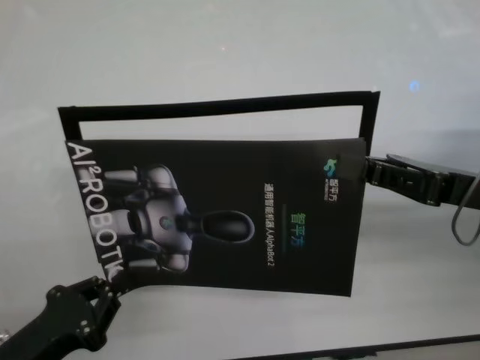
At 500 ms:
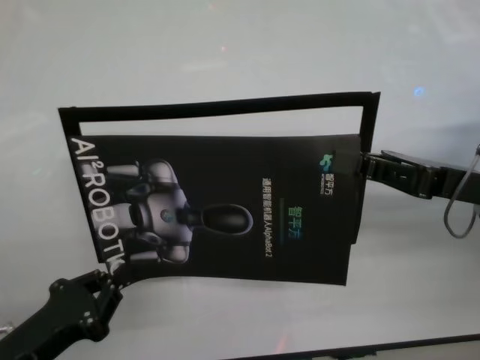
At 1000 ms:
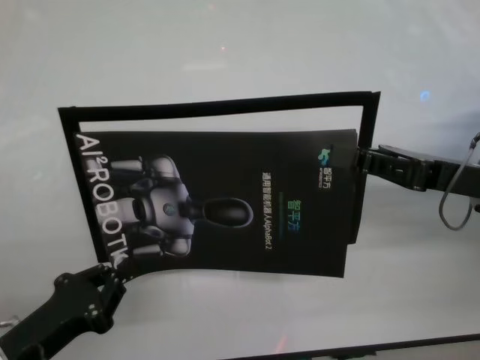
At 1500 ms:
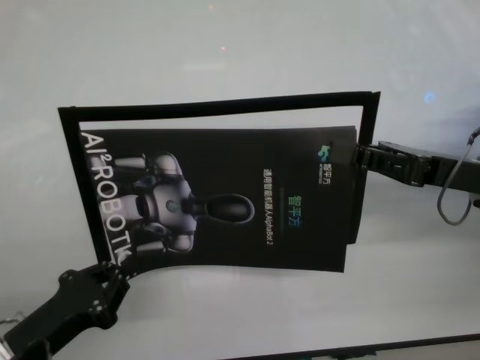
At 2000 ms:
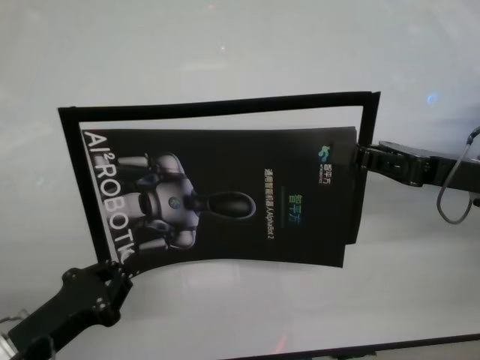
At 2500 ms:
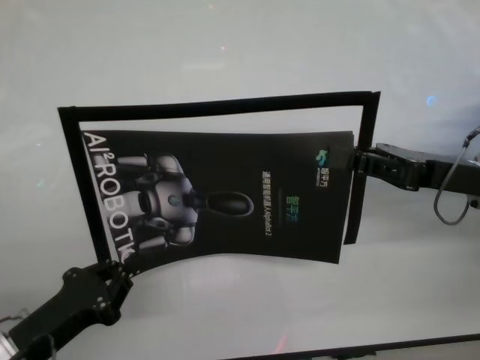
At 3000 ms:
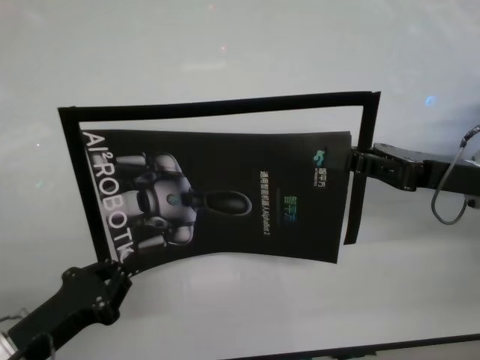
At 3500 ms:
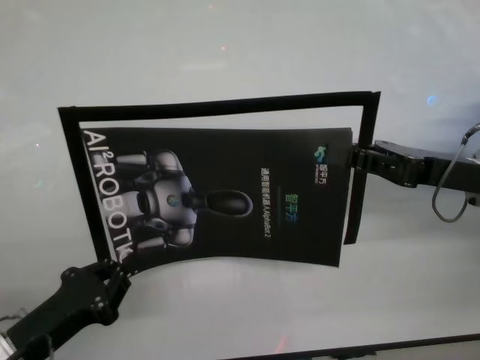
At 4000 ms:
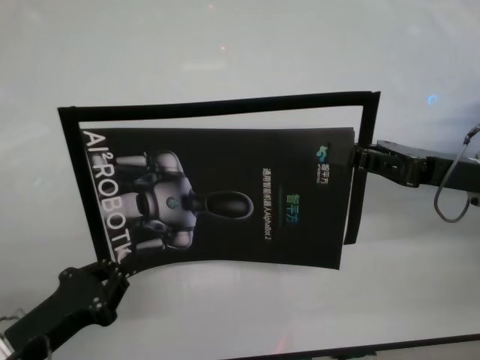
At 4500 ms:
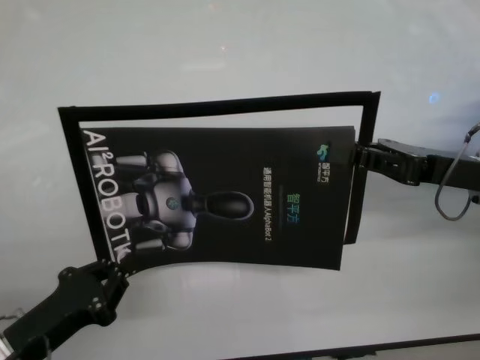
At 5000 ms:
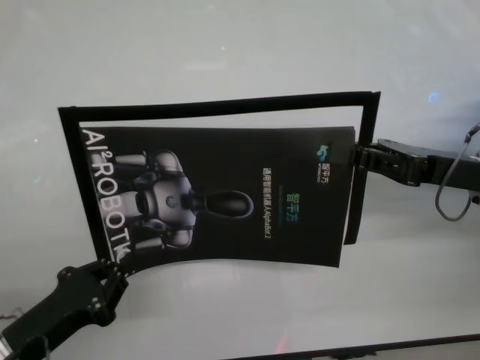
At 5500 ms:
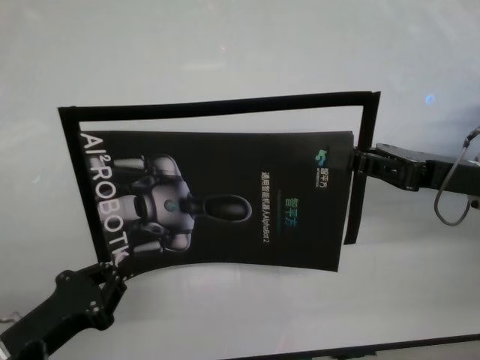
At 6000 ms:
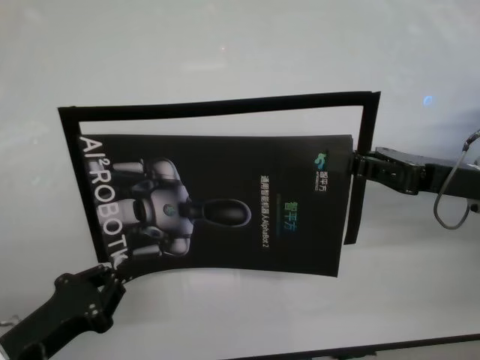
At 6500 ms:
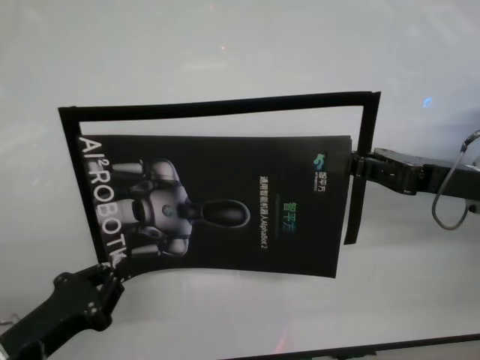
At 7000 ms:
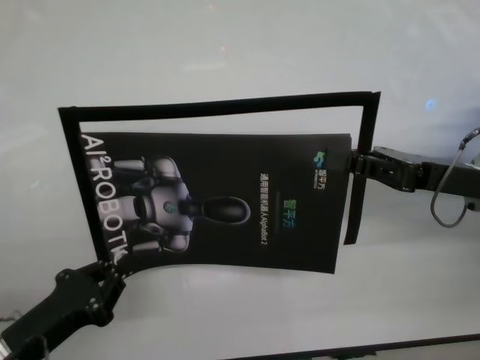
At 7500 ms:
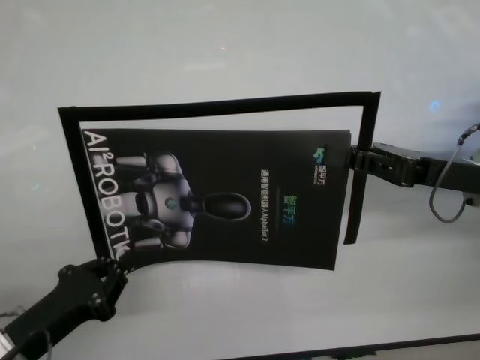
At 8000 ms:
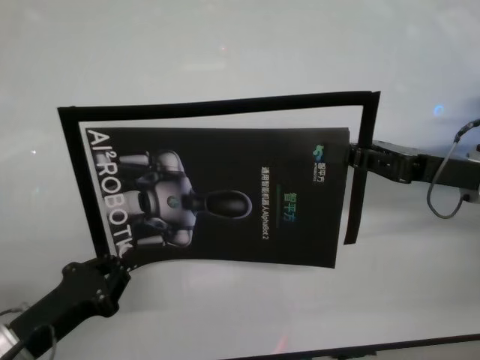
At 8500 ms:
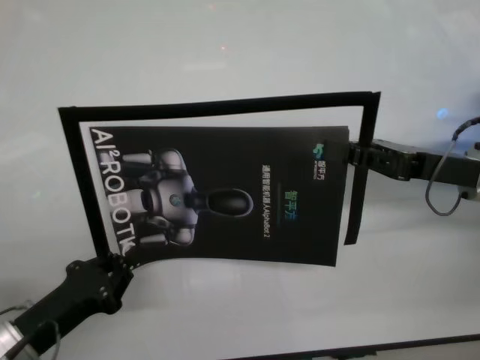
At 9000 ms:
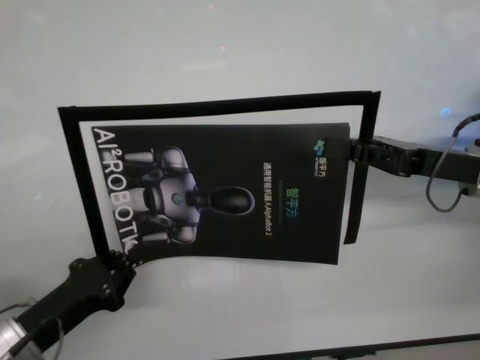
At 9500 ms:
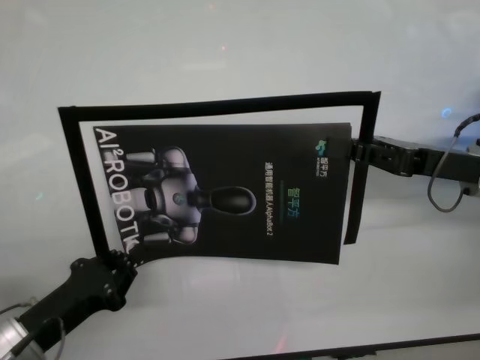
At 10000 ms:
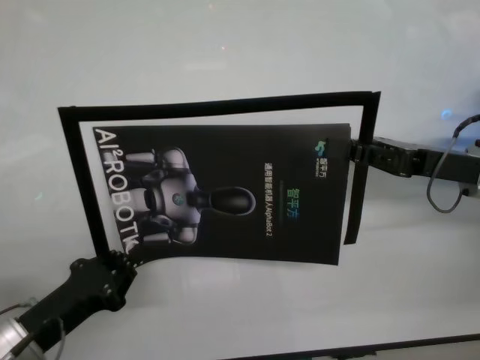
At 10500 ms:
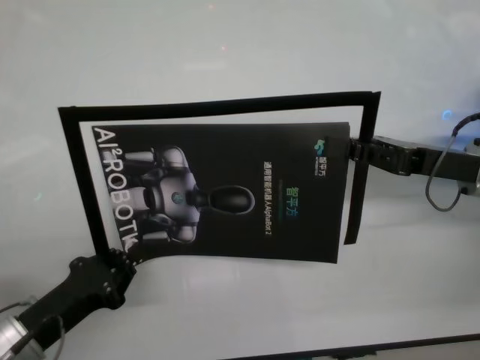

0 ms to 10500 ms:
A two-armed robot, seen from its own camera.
Task of the whole recording: stick the poster on the table by hand.
Step, 0 ms to 9500 ms: Stick the advertisement in the top-right corner area with both grippers.
